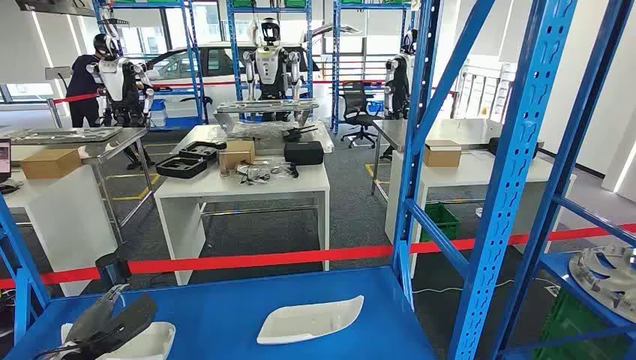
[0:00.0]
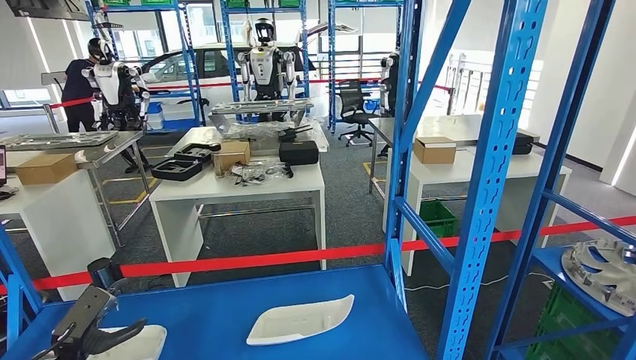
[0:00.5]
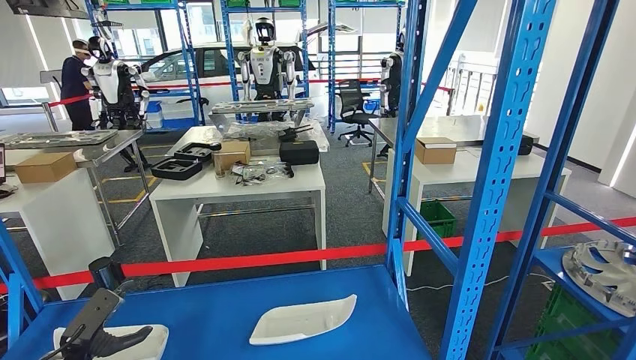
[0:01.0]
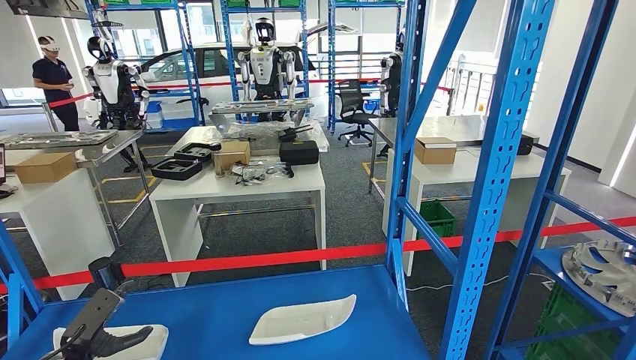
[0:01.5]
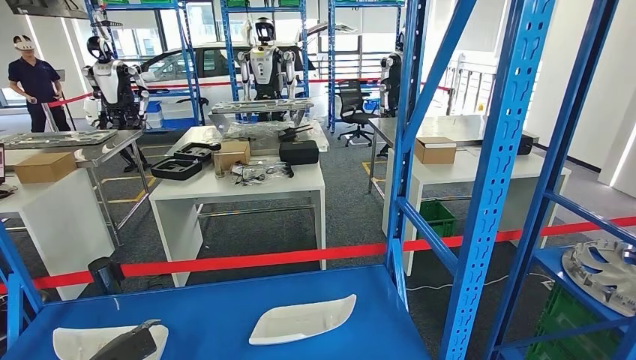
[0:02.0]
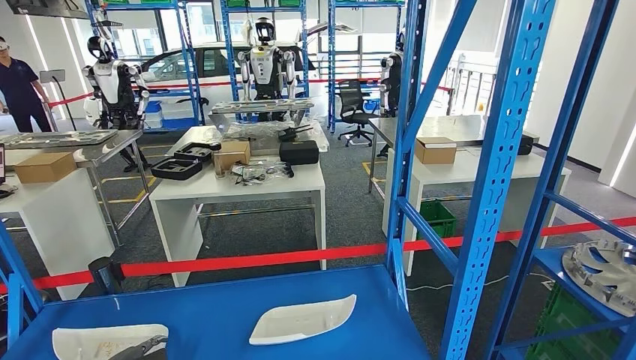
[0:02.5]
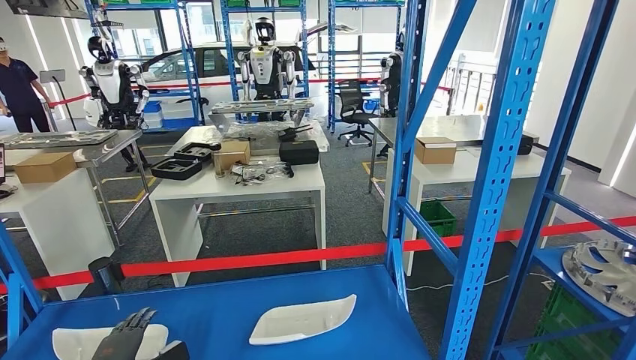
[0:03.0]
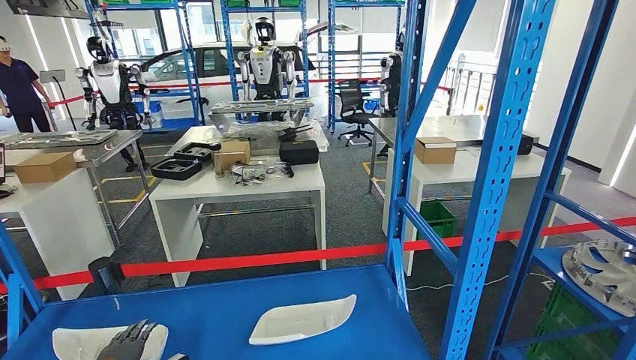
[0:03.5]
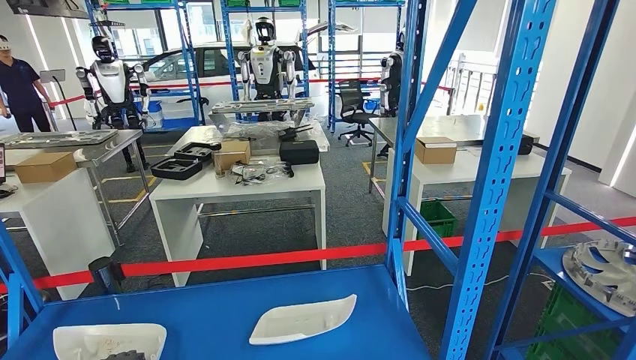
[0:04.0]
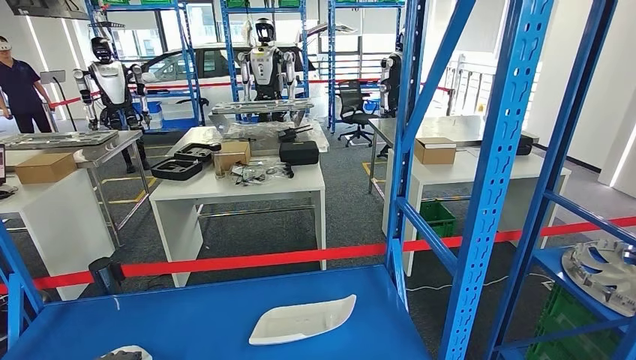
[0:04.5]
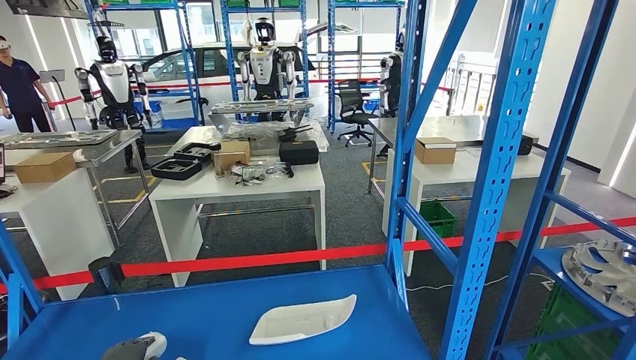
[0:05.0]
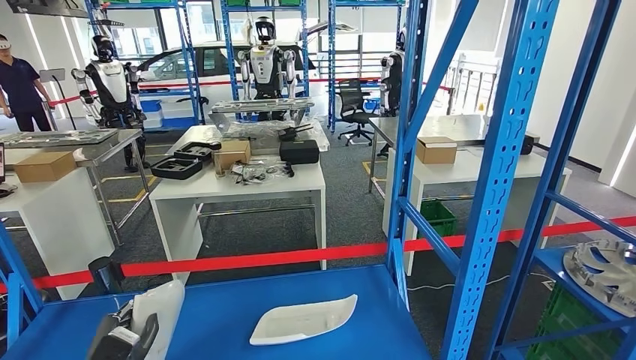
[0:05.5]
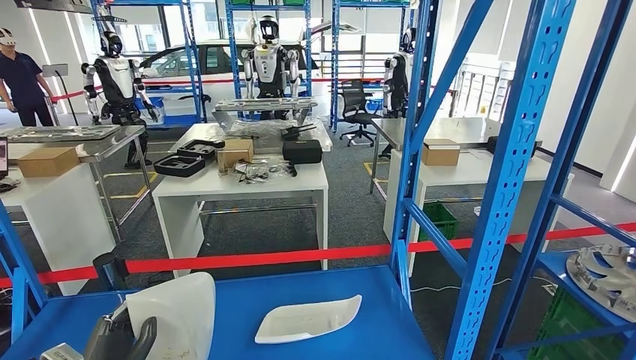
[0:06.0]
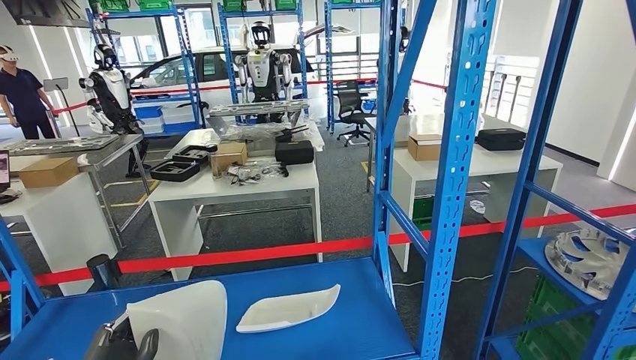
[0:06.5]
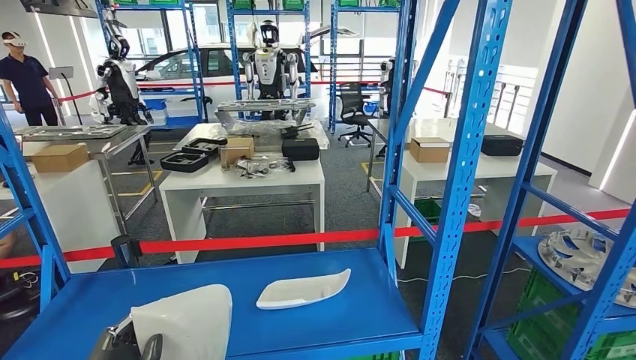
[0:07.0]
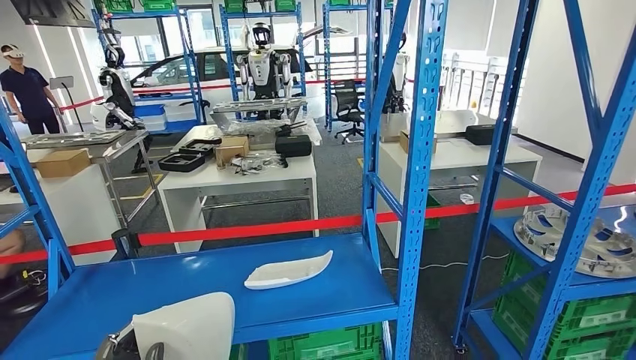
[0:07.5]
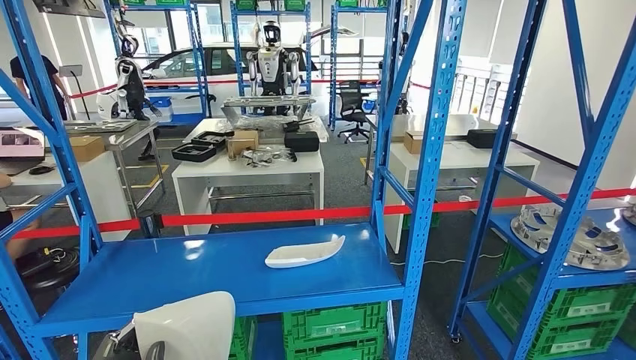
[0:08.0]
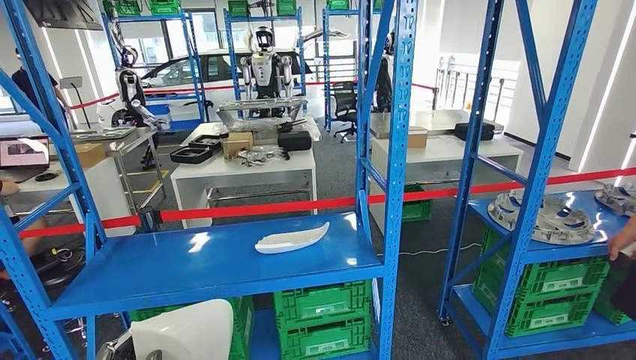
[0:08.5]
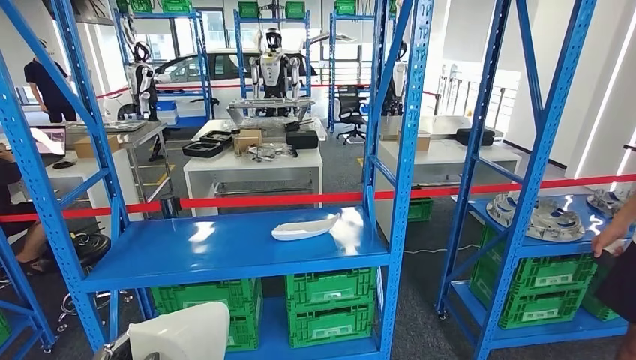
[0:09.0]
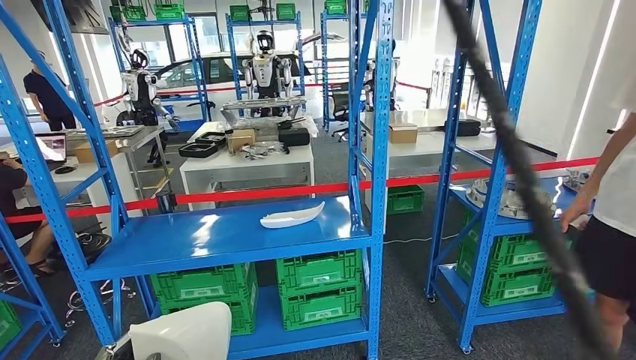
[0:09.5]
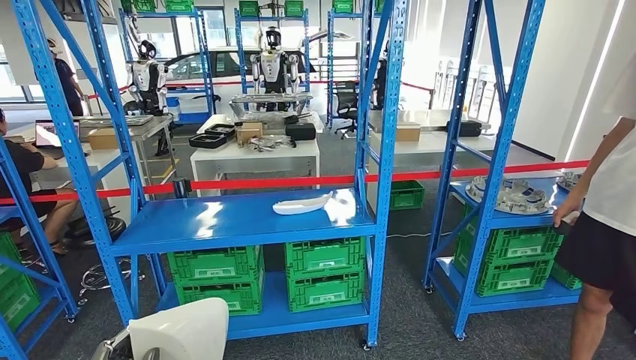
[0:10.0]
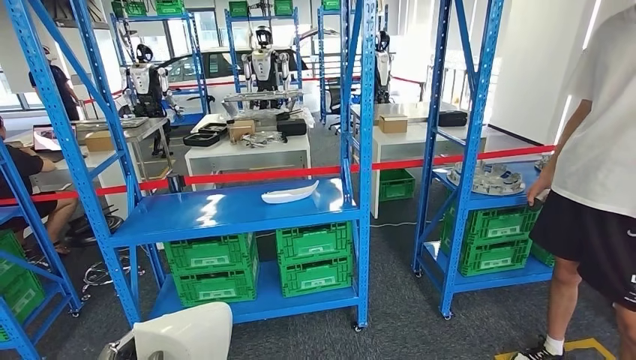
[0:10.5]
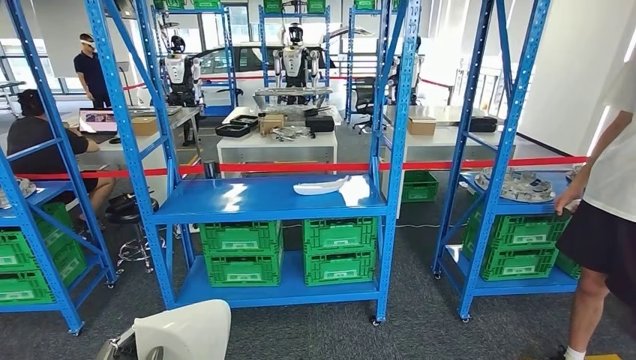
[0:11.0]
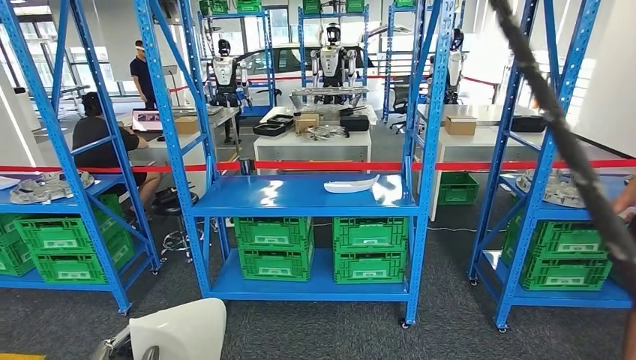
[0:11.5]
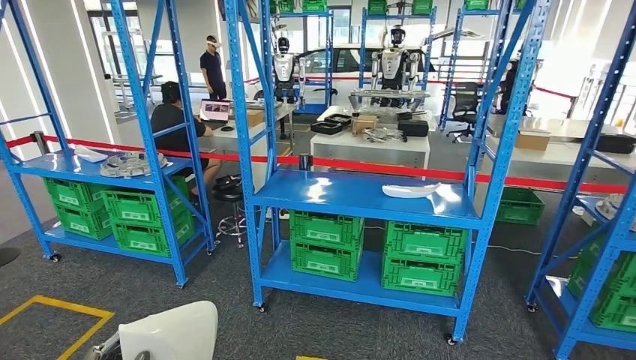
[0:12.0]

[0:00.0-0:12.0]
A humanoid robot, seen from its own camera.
Step, 0:00.0 to 0:06.5: Pick up the small component from the shelf.

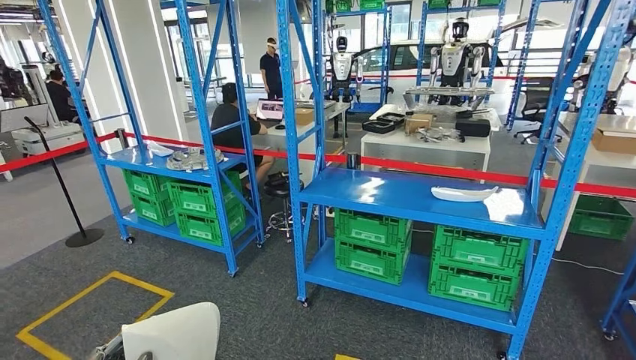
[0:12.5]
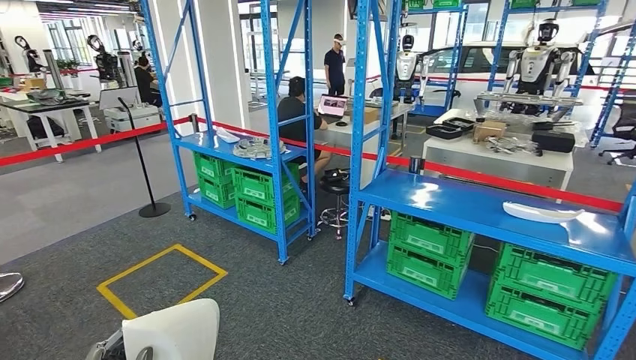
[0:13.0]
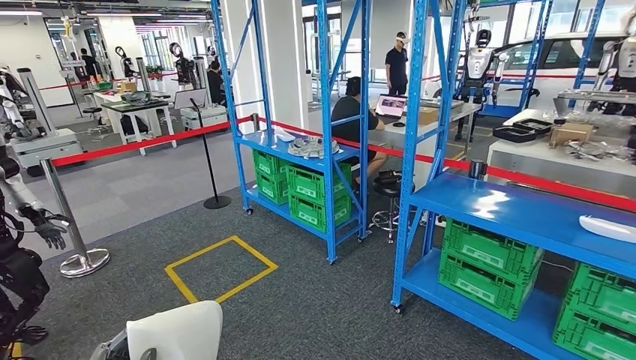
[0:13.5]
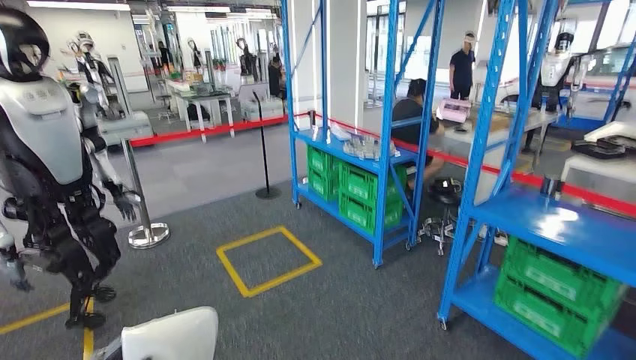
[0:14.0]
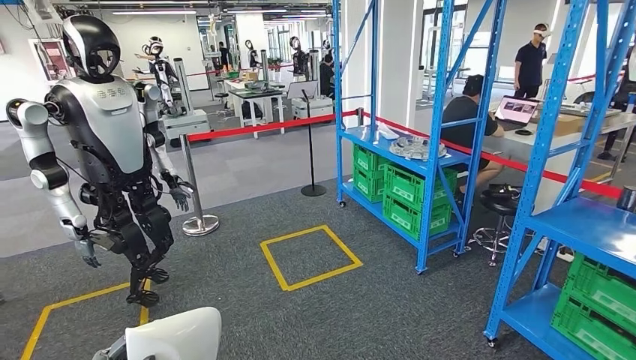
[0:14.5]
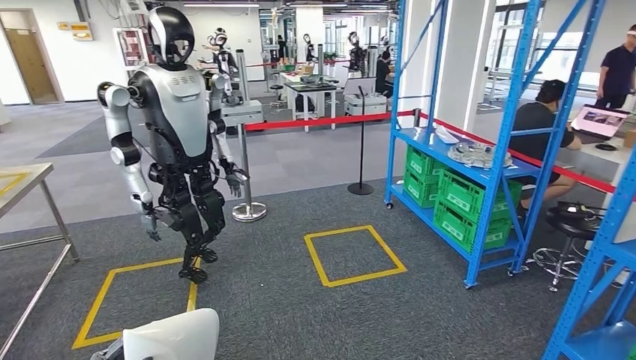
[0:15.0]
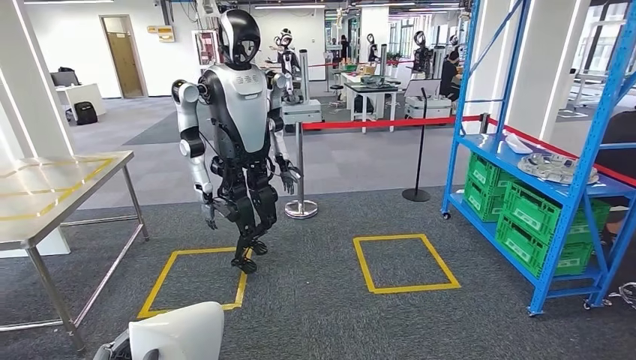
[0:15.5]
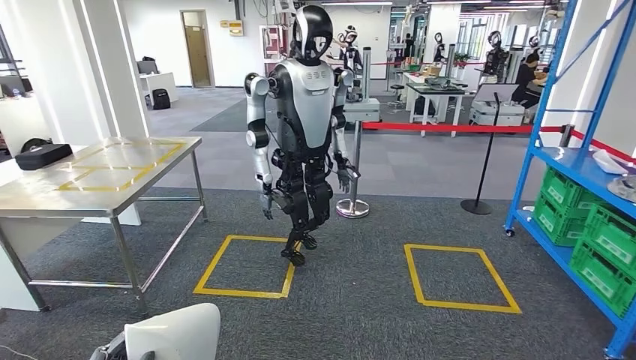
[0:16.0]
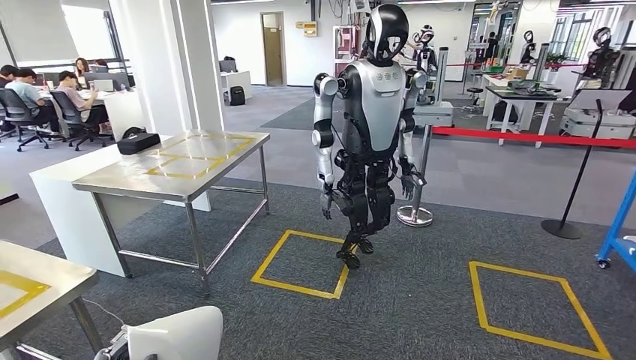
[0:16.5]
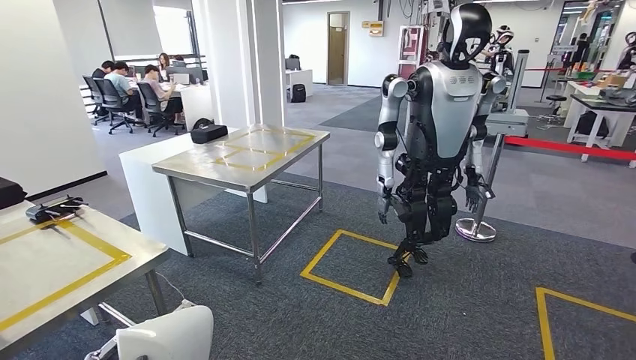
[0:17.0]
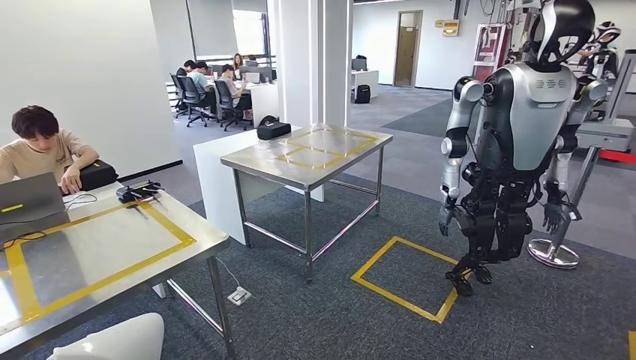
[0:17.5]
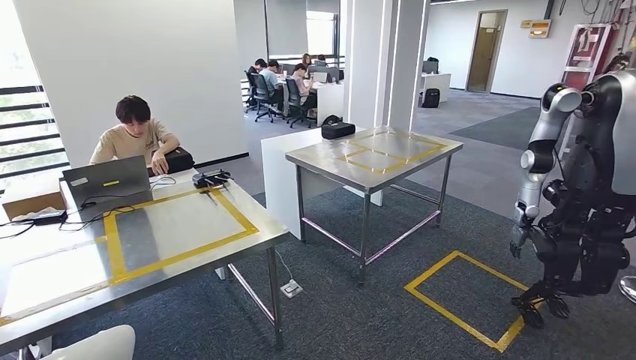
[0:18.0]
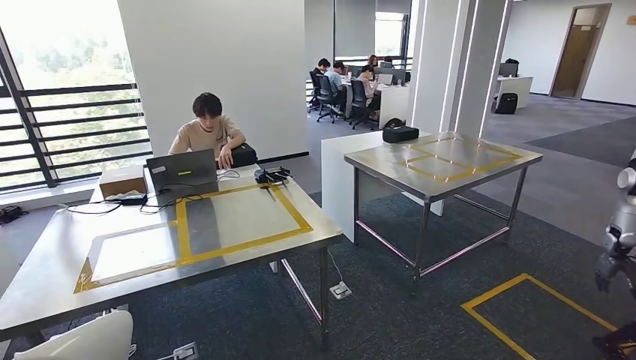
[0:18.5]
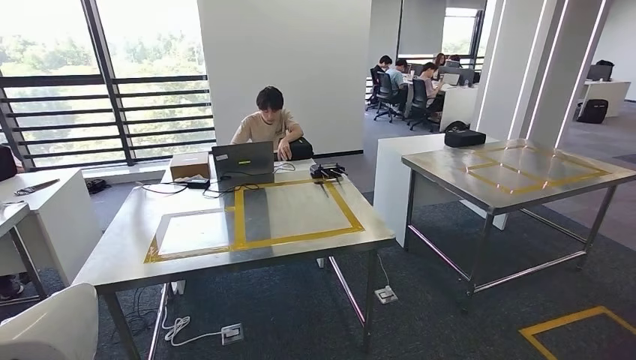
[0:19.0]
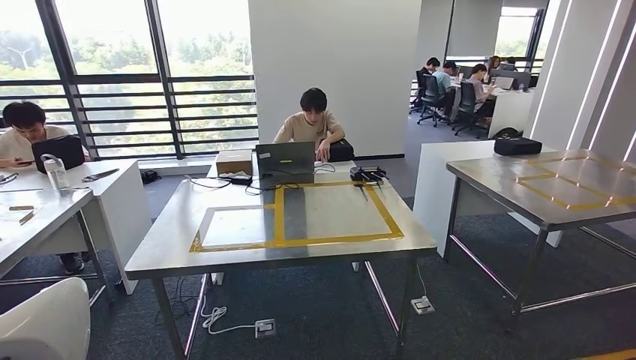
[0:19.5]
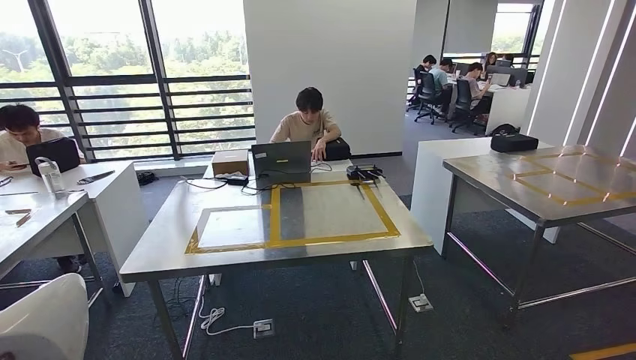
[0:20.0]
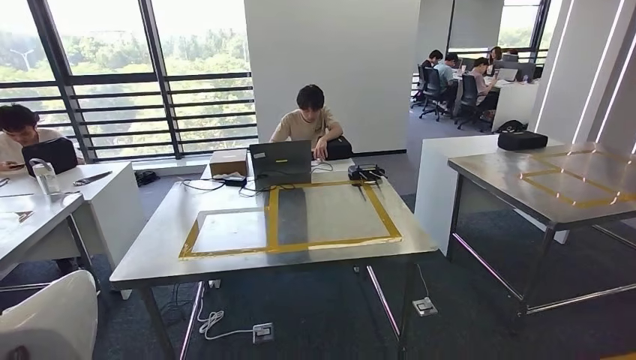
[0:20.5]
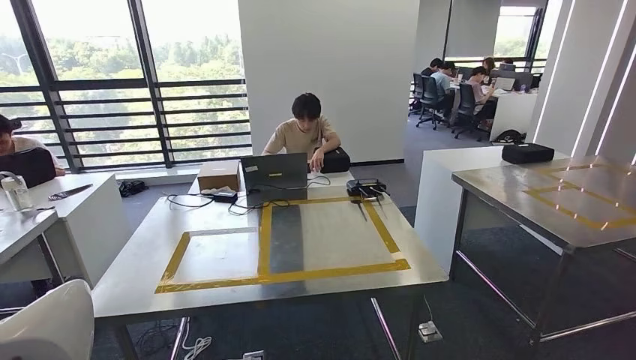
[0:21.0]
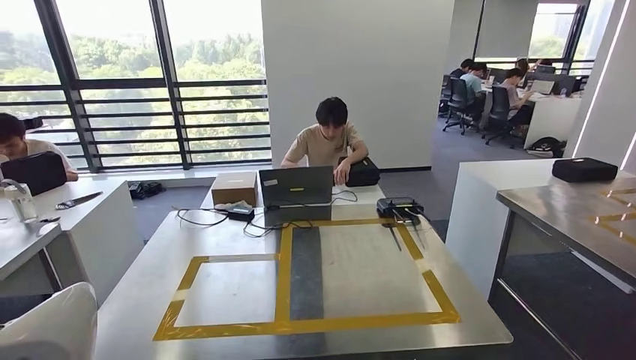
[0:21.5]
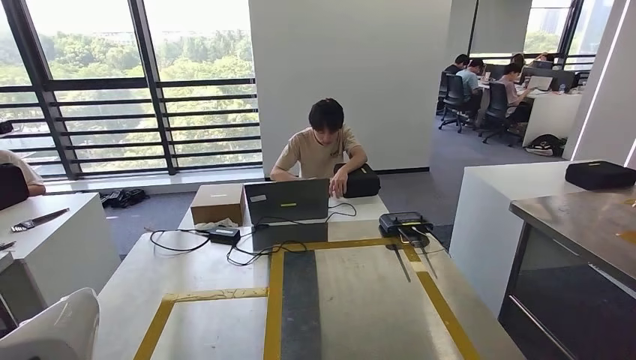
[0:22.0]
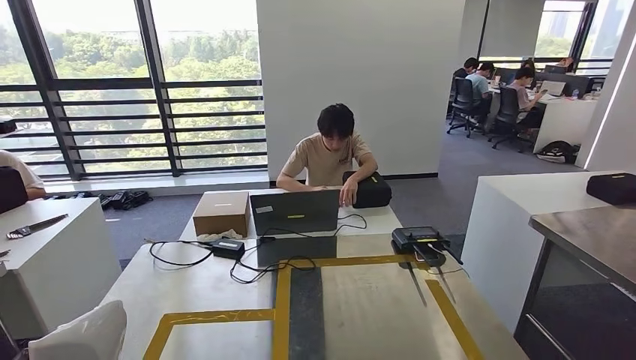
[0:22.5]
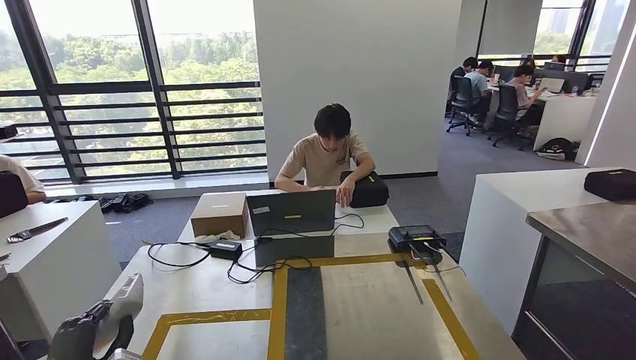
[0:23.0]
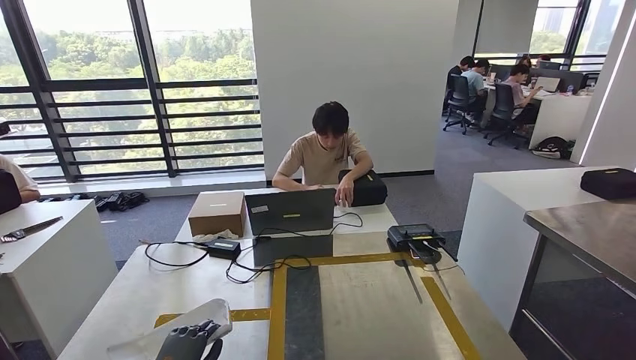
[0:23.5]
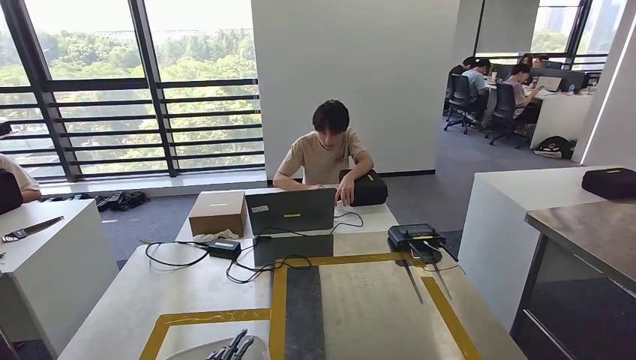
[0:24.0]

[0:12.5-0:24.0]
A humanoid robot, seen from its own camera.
Step, 0:12.5 to 0:19.0: Move the small component to the workbench.
